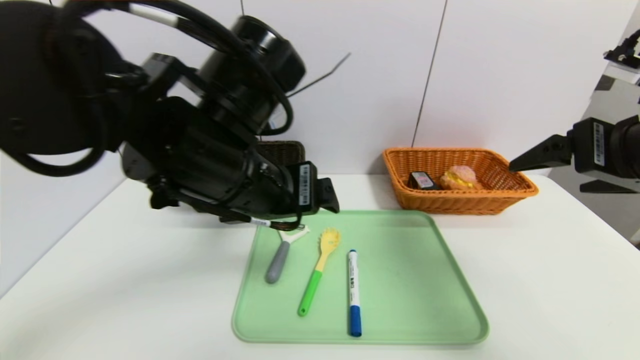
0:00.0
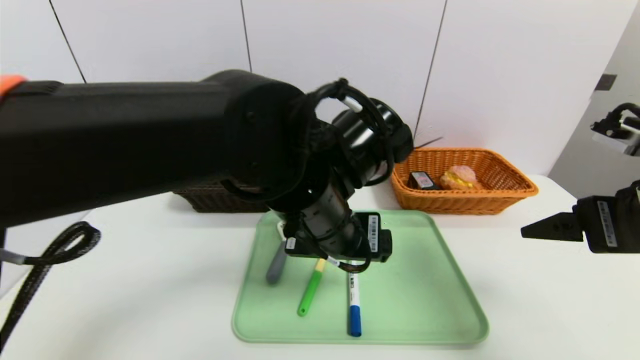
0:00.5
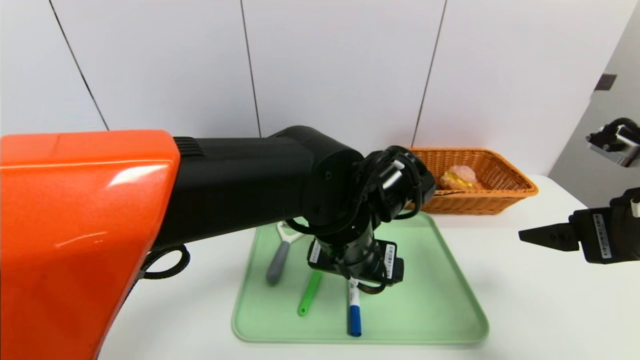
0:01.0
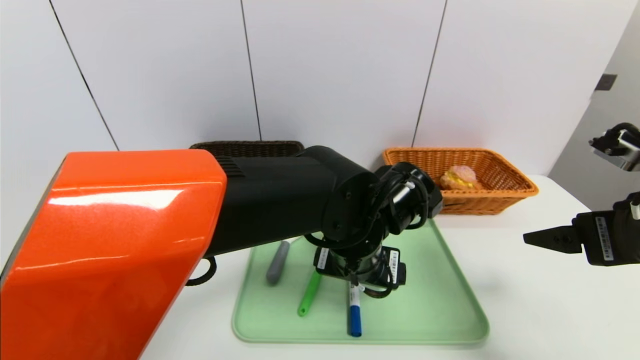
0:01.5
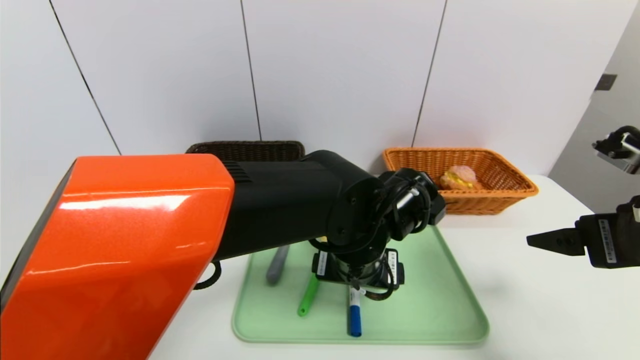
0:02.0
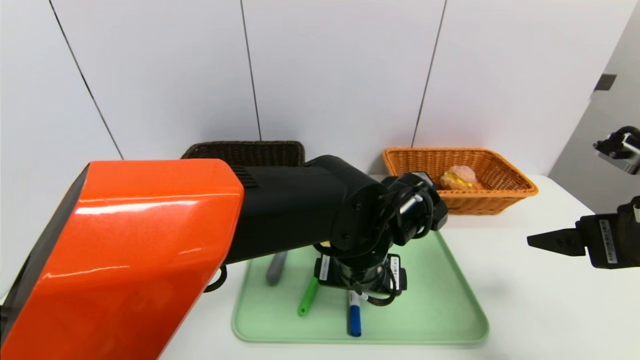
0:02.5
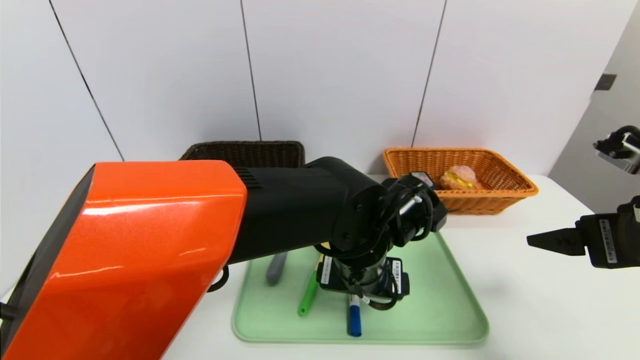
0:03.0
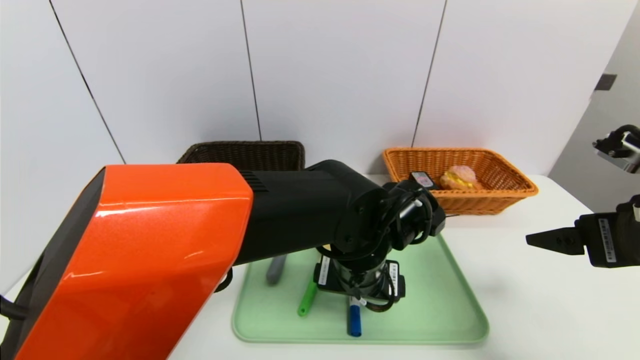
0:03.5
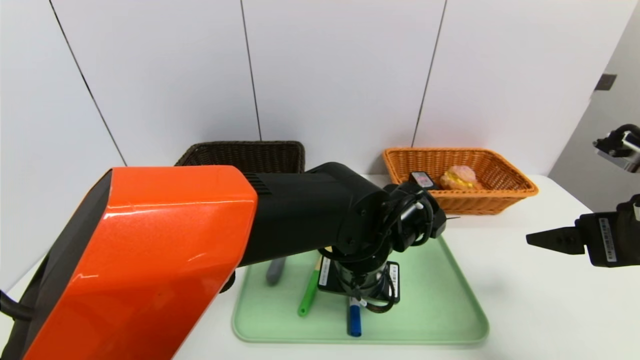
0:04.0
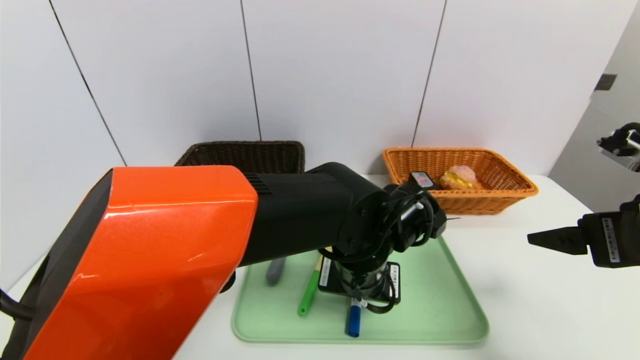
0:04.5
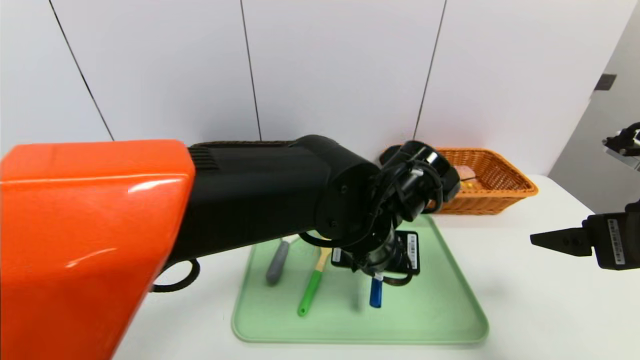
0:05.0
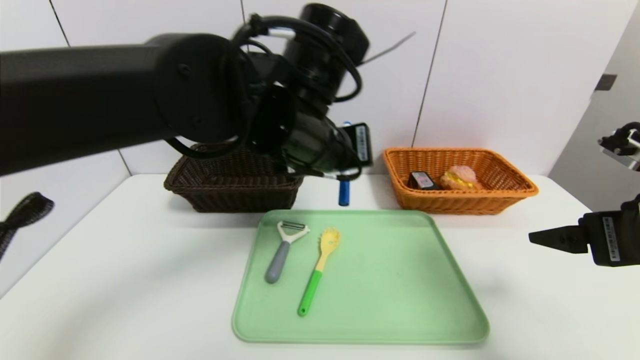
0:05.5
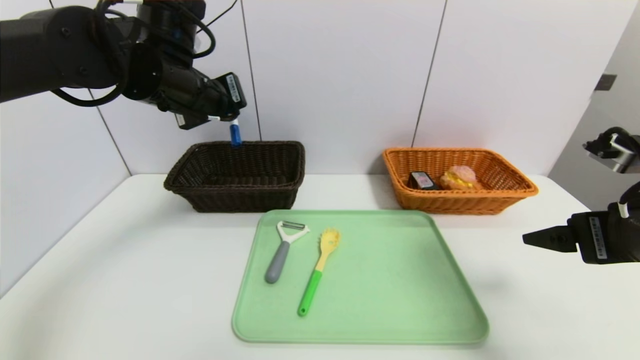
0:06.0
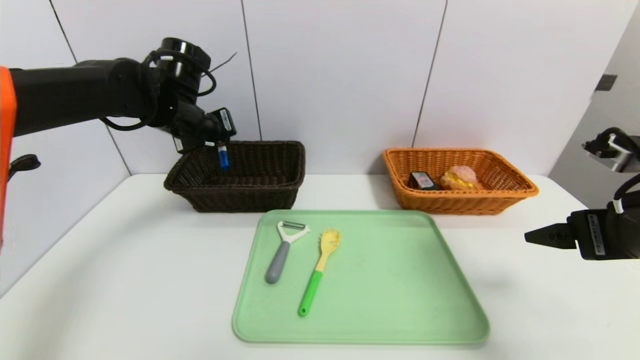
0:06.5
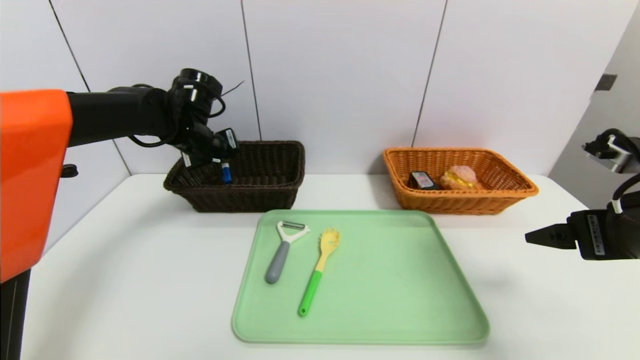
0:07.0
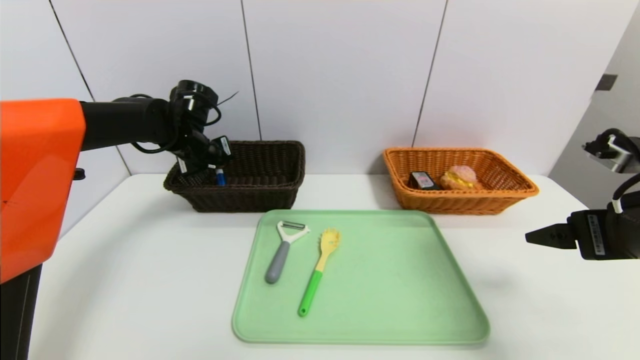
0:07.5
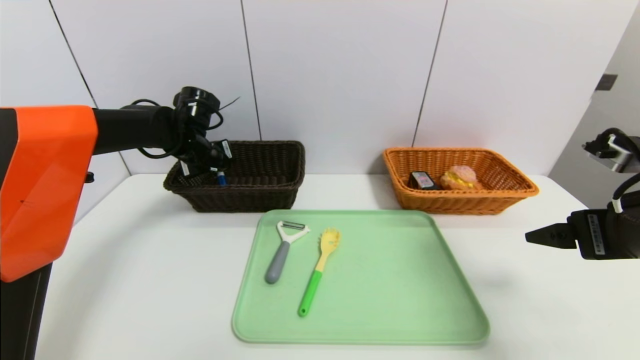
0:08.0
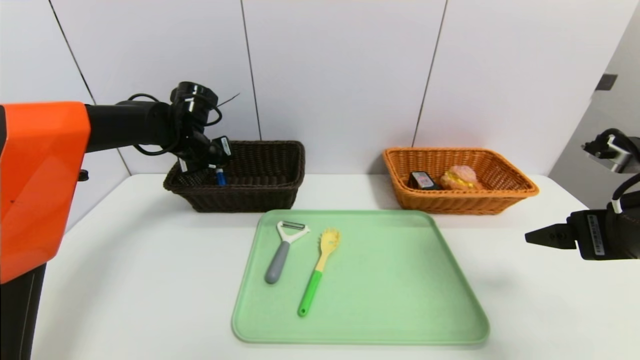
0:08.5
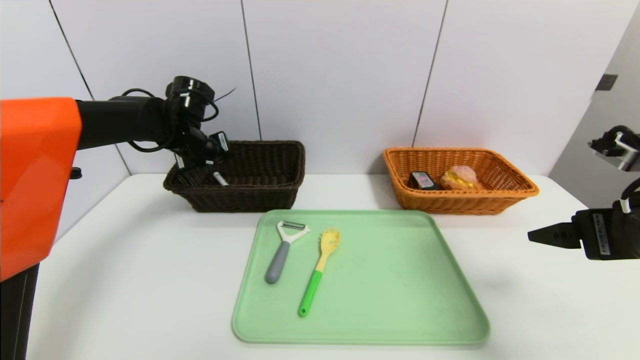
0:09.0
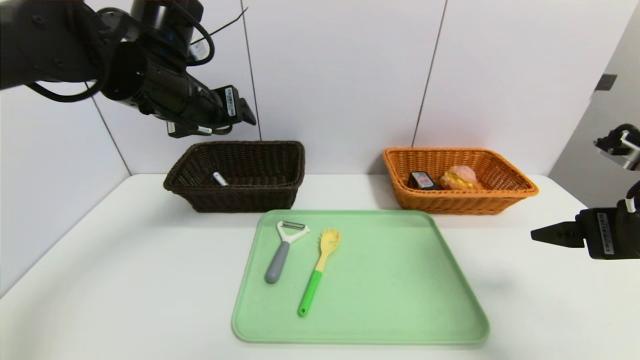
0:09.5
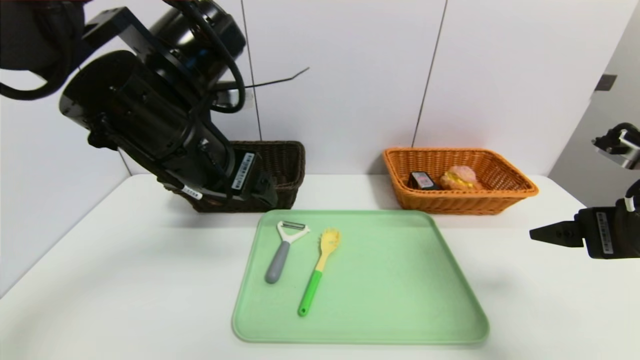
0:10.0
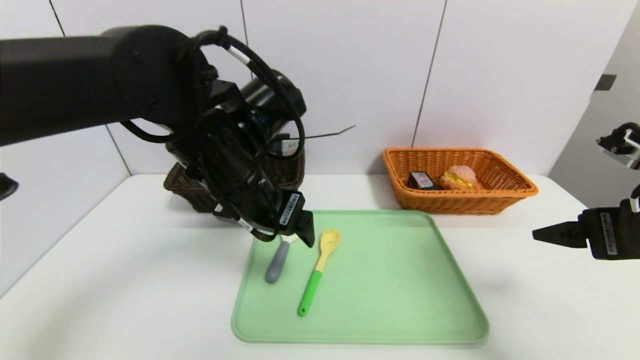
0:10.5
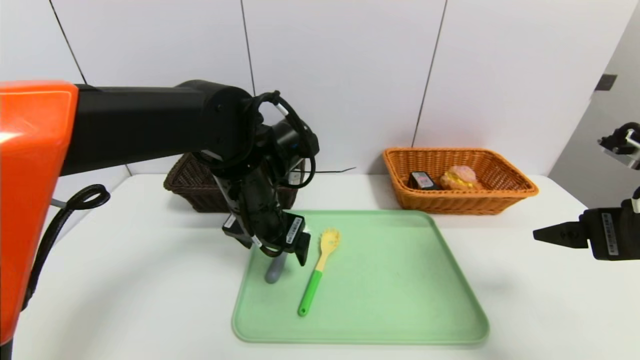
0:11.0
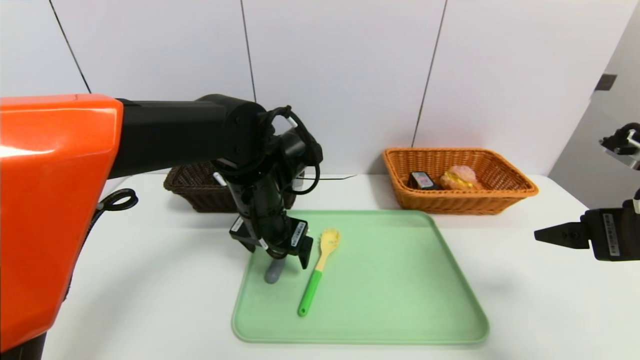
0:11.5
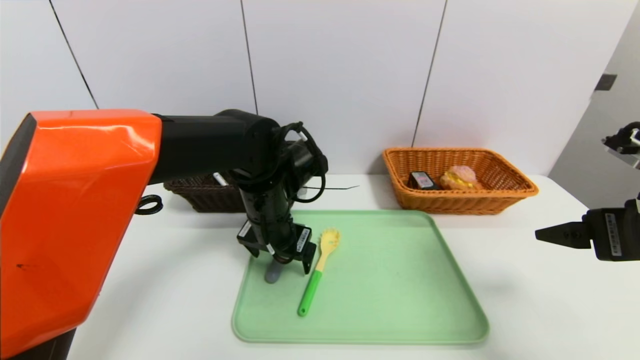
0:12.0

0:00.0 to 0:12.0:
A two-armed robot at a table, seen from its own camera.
Task of the whole recording: place the food in the right basket with the right gripper, and place the non food items in the left basket with the left gripper.
Step, 0:00.0 to 0:09.0: Grasp the blue marker and put it in the left basket.
0:00.0 to 0:02.0: The right gripper goes some 5 cm downward; the left gripper moves to the right and downward, some 15 cm.
0:02.0 to 0:04.0: The grippers stay close to where they were, moving slightly.
0:04.0 to 0:06.0: The left gripper goes some 30 cm to the left, upward and forward, and closes up.
0:06.0 to 0:08.0: The left gripper moves downward and forward, some 15 cm.
0:08.0 to 0:10.0: The left gripper is displaced backward, upward and to the right by some 25 cm, and opens its fingers.
0:10.0 to 0:12.0: The left gripper is displaced downward, forward and to the right by some 15 cm.

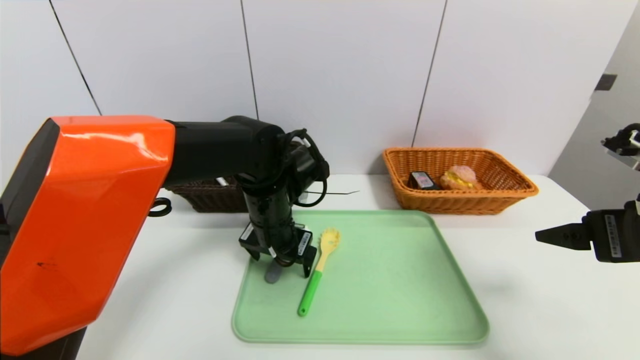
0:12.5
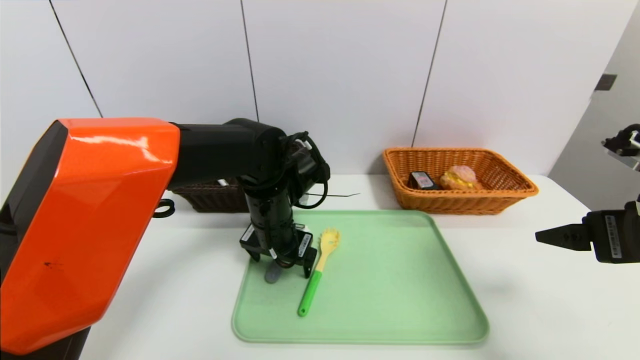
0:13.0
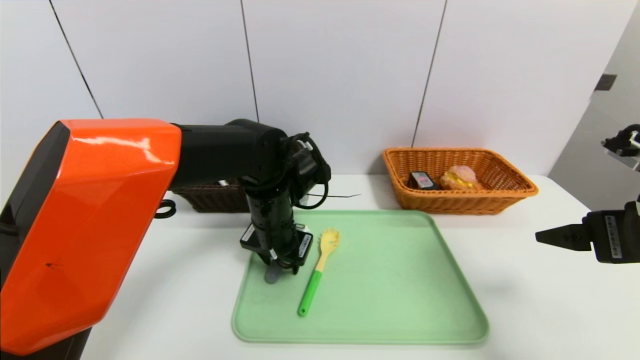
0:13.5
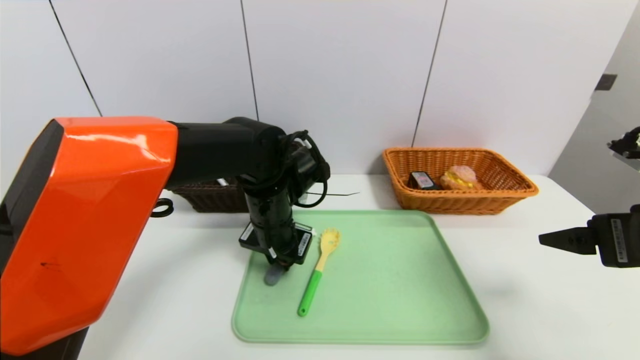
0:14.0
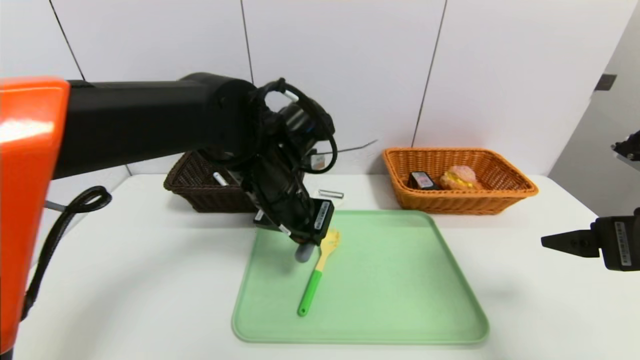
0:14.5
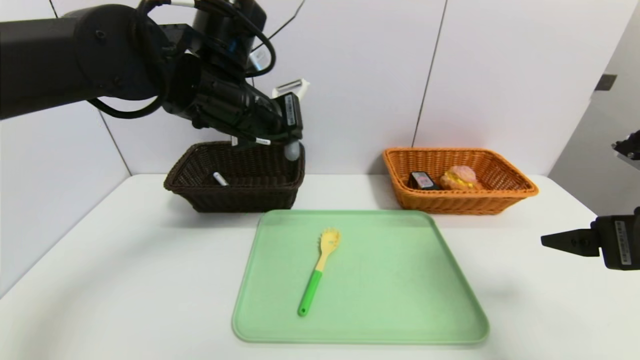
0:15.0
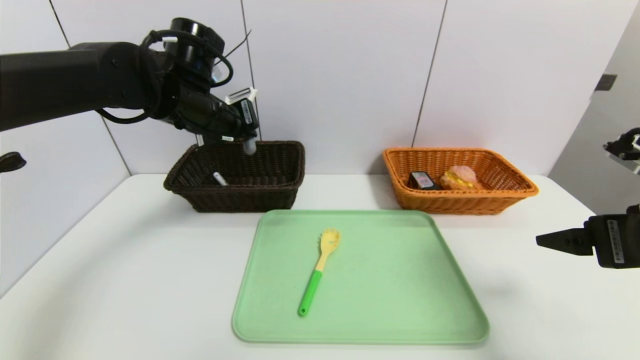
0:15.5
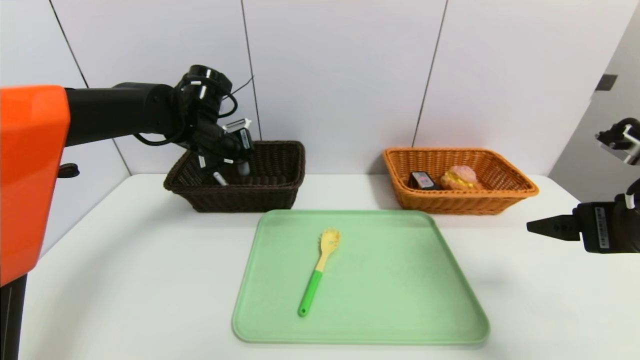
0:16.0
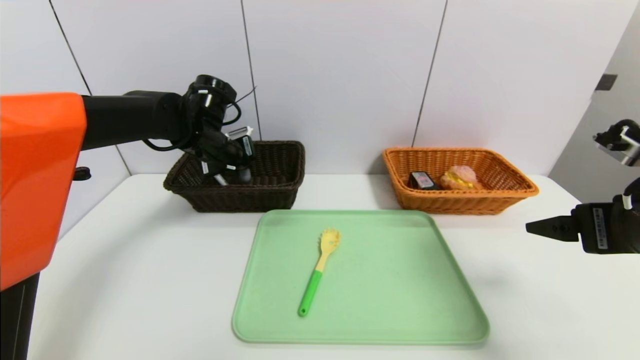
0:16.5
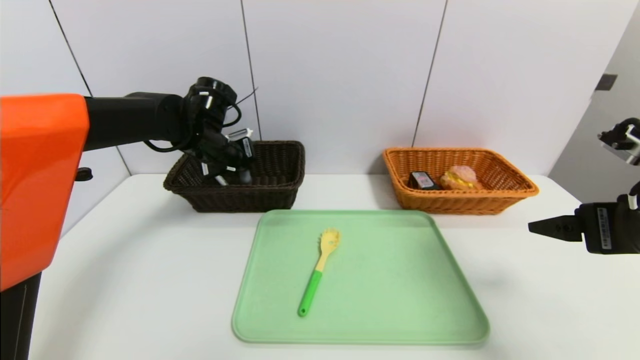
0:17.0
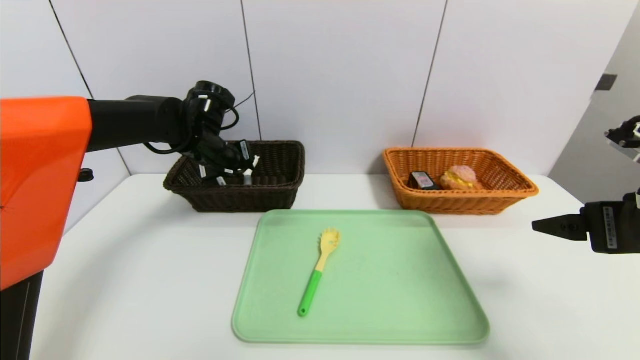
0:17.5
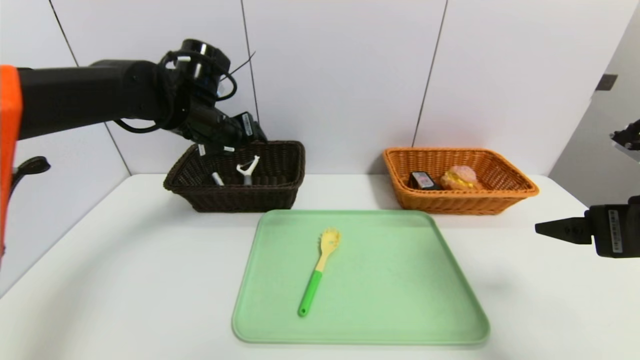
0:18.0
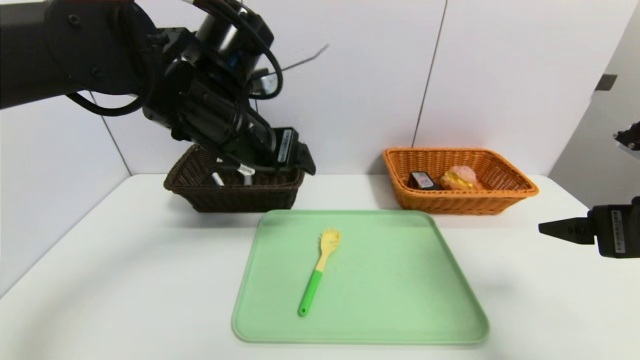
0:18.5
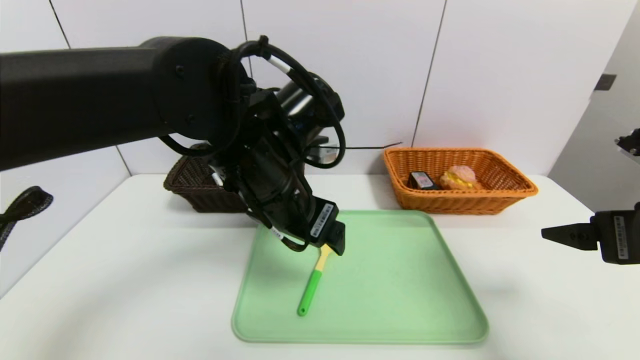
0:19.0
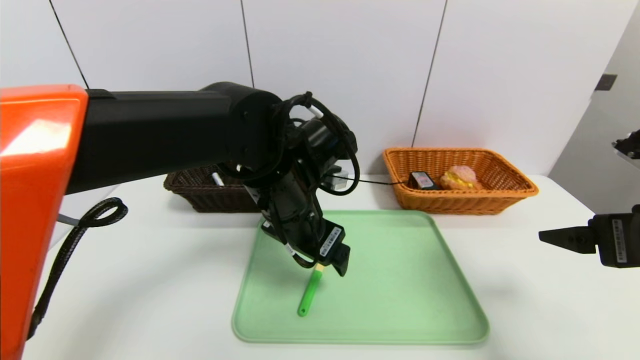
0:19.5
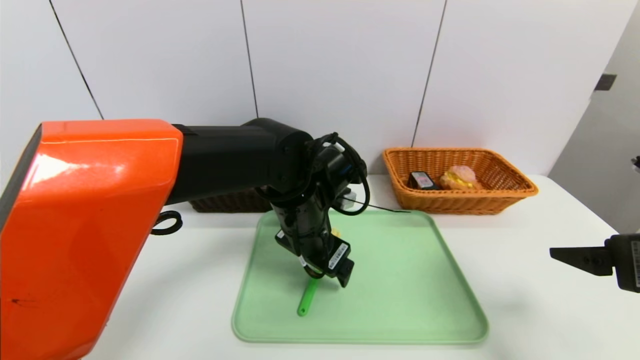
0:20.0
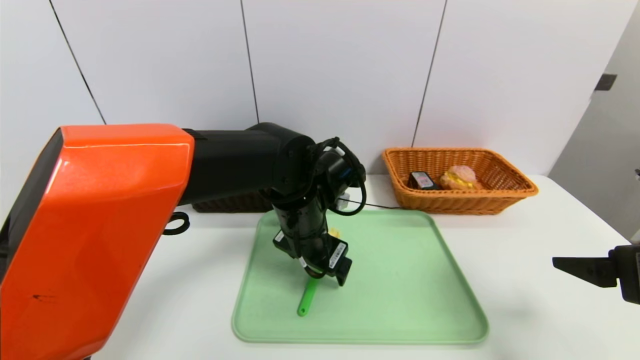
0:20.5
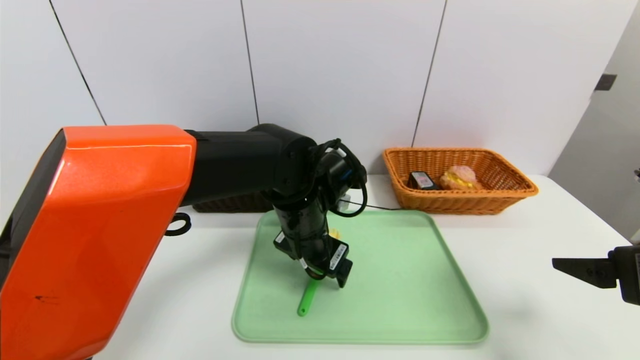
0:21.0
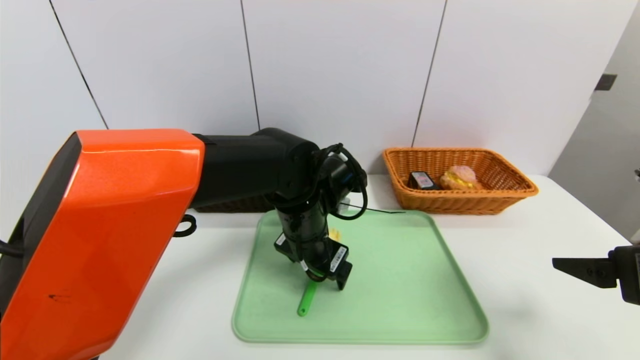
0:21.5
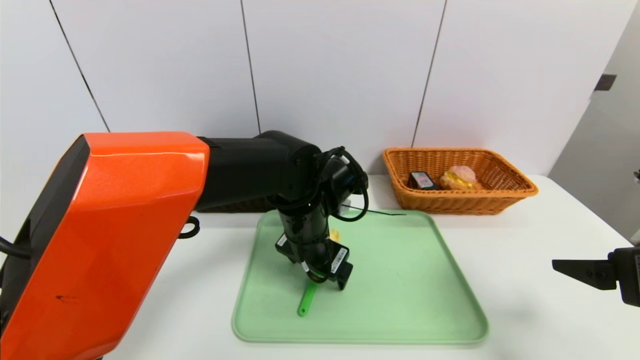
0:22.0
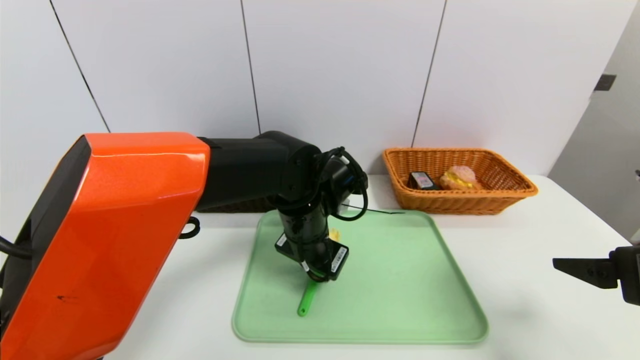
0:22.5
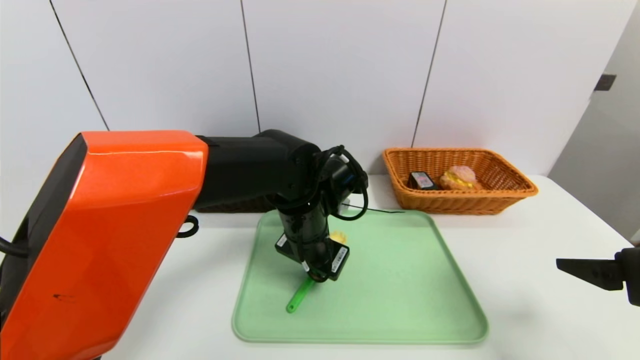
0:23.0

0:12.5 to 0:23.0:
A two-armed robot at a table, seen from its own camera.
Task of the whole recording: place the food in the right basket with the right gripper, and place the non food items in the left basket with the left gripper.
Step, 0:12.5 to 0:17.5: Grasp the peeler and put it in the left basket.
0:12.5 to 0:14.5: The left gripper travels upward by roughly 5 cm, and closes up.
0:14.5 to 0:16.5: The left gripper shifts about 20 cm forward and to the left.
0:16.5 to 0:19.0: The left gripper heads backward and to the right, covering roughly 20 cm, and opens up.
0:19.0 to 0:21.0: The left gripper is displaced downward by roughly 10 cm.
0:21.0 to 0:23.0: The left gripper closes.
